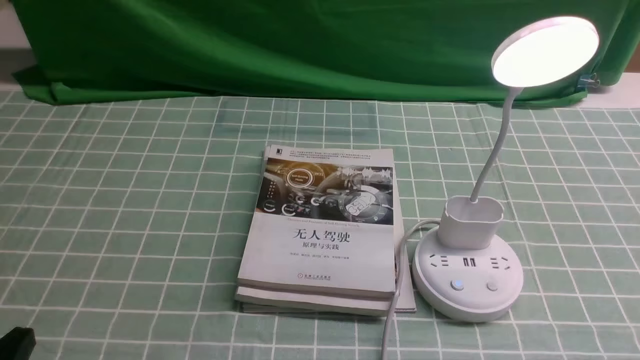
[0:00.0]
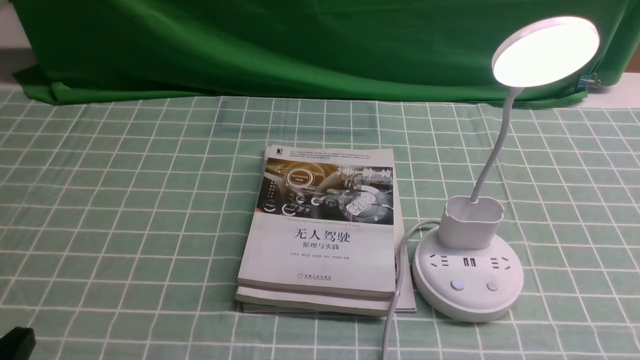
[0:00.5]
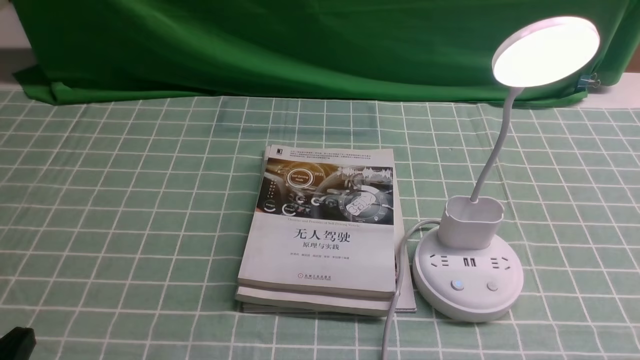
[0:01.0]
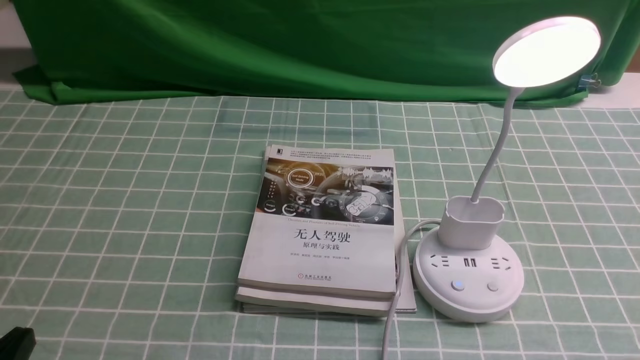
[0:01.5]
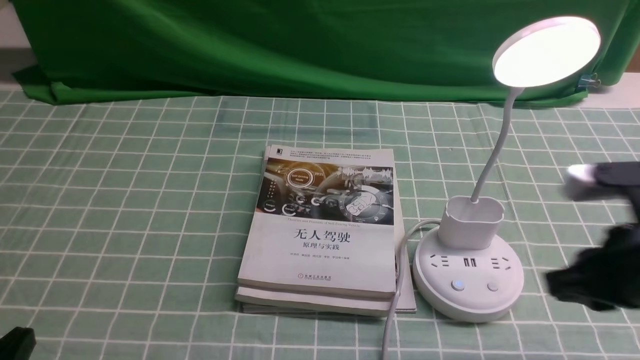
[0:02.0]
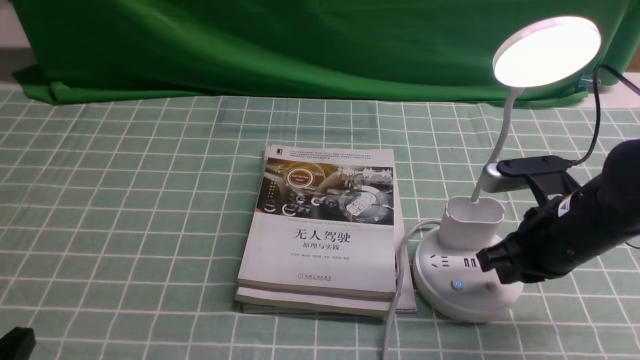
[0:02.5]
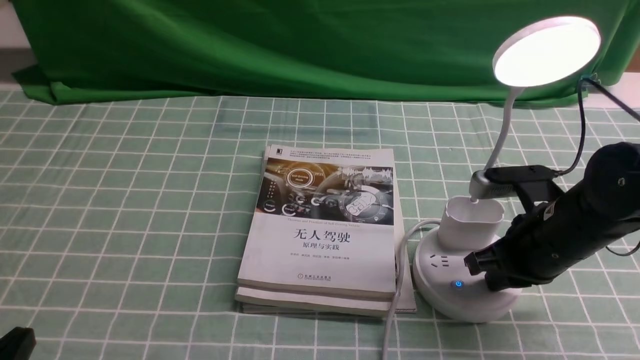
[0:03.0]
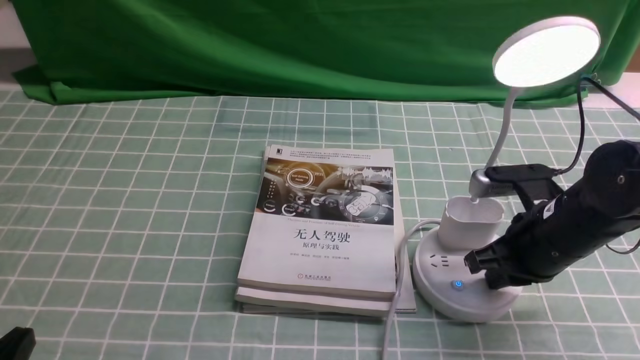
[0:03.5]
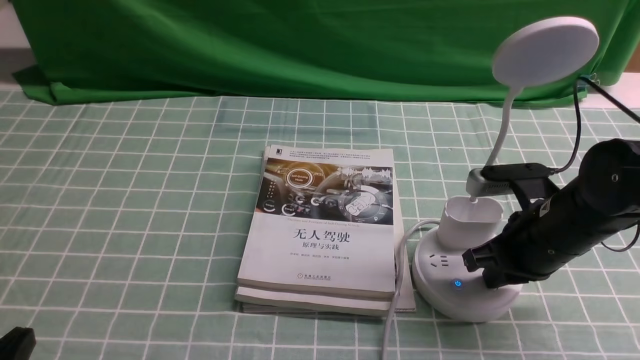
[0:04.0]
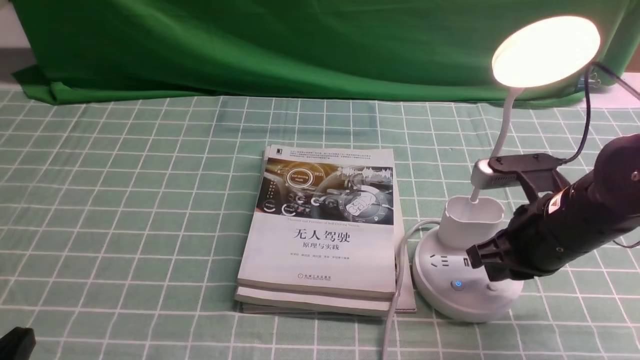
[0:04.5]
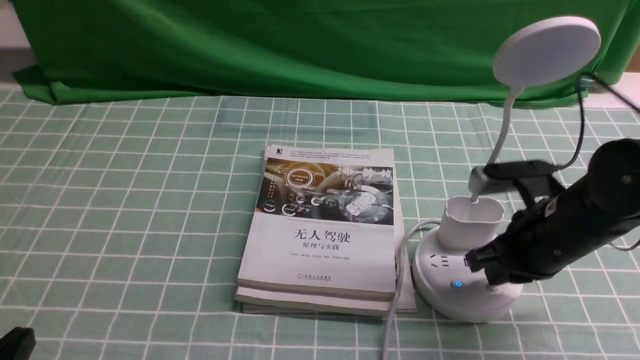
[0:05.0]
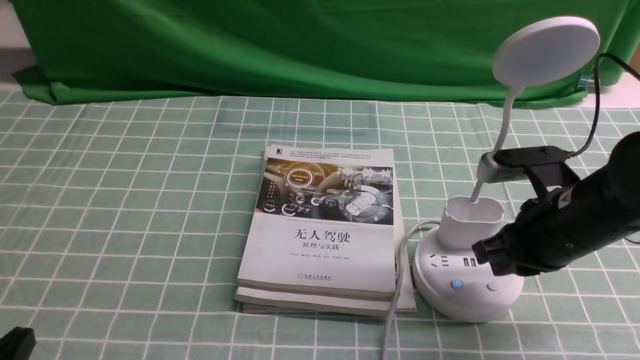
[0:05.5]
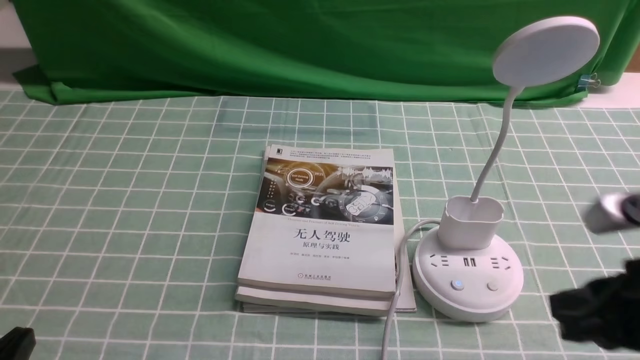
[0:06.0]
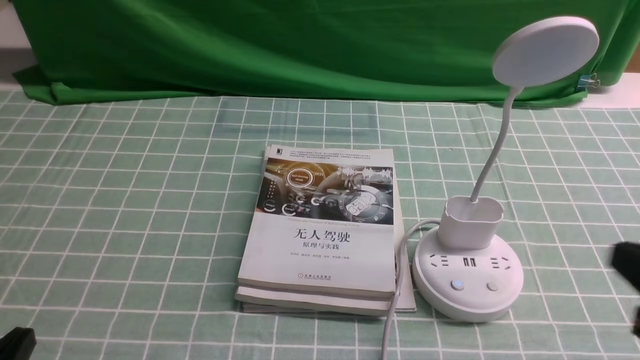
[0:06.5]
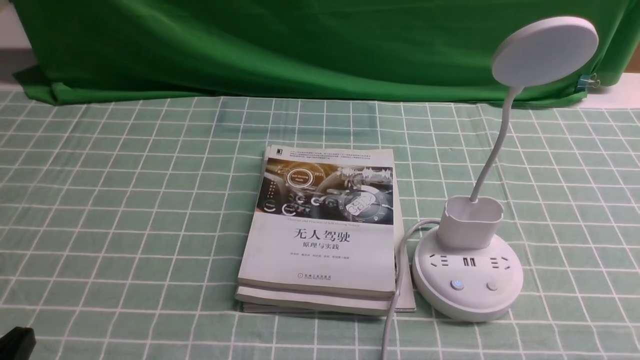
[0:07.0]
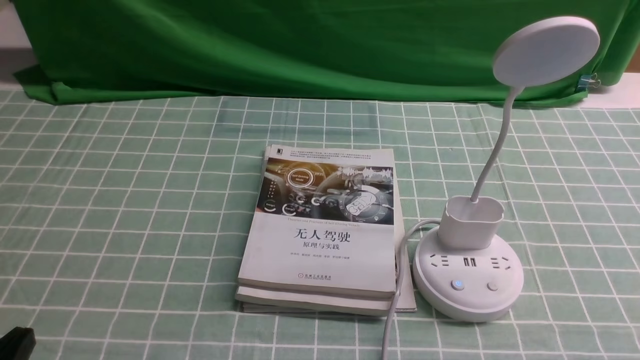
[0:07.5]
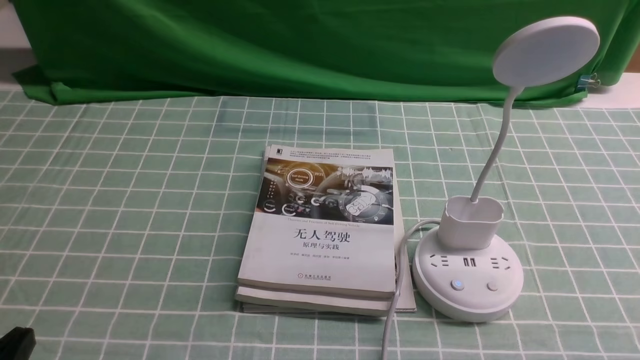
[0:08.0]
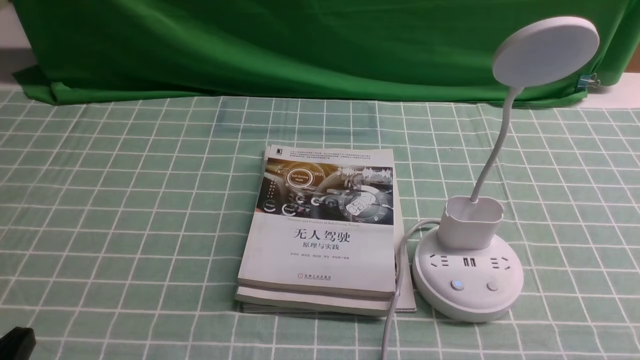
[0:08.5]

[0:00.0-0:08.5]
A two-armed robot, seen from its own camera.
Task of the whole recording: turn off the desk lamp on the blue coffee tablecloth by hand.
Step, 0:00.0 to 0:05.0: use the right arm to press the button switch on the lamp holder.
0:02.0 to 0:04.0: The right gripper shifts some 15 cm forward and downward.
0:04.0 to 0:06.5: The right gripper moves backward and upward, approximately 20 cm.
0:06.5 to 0:08.5: The right gripper is displaced downward and backward by about 10 cm.
